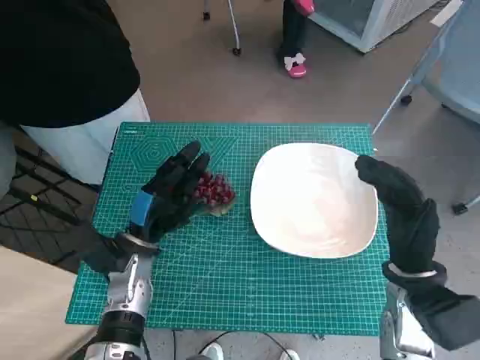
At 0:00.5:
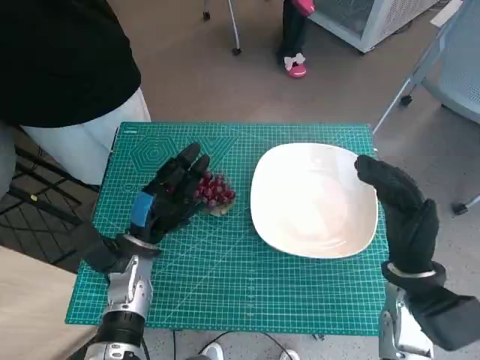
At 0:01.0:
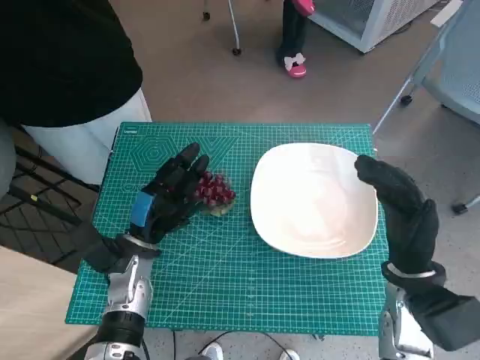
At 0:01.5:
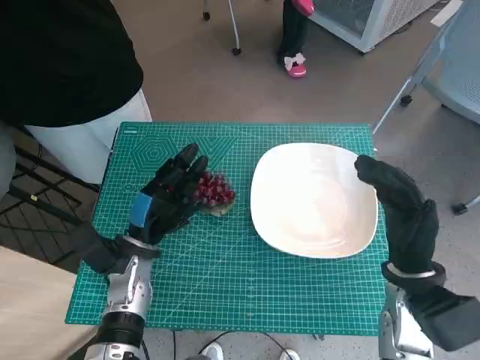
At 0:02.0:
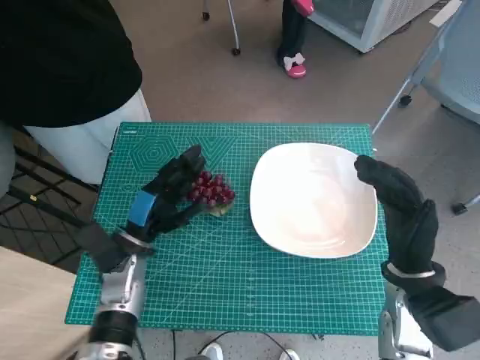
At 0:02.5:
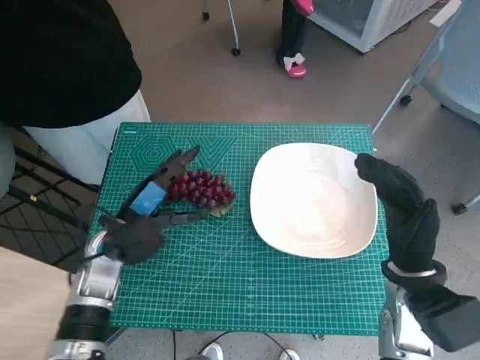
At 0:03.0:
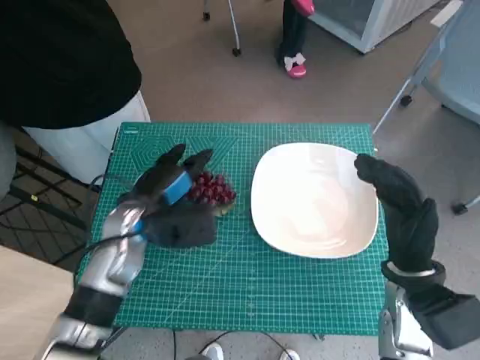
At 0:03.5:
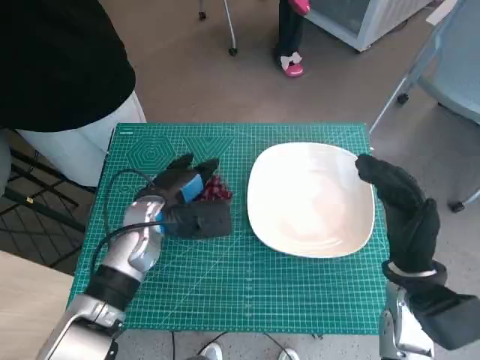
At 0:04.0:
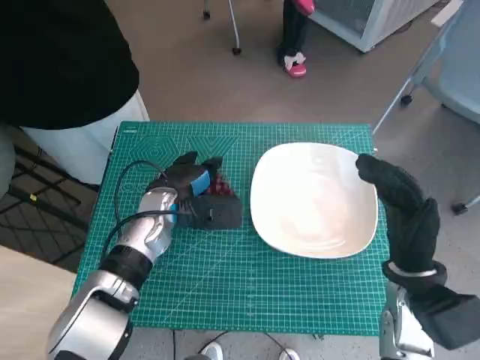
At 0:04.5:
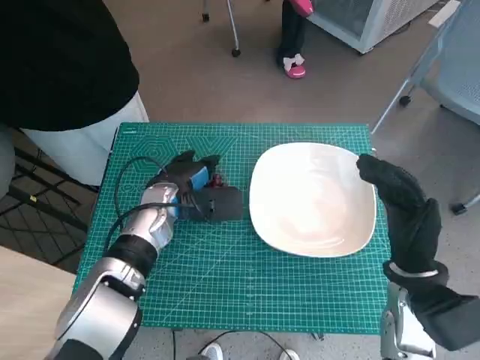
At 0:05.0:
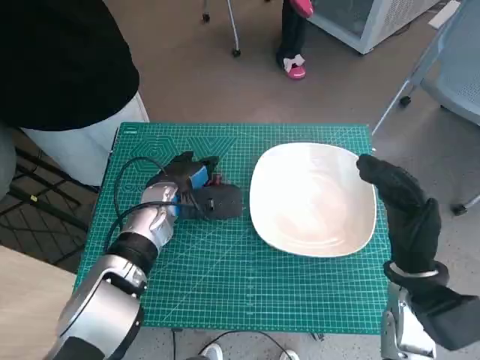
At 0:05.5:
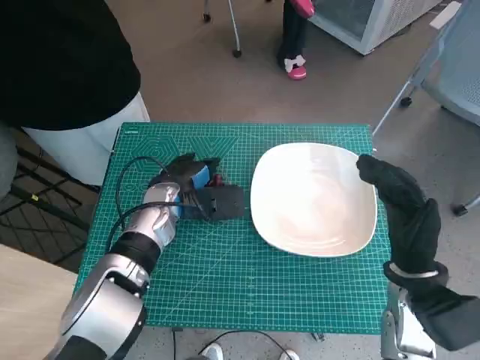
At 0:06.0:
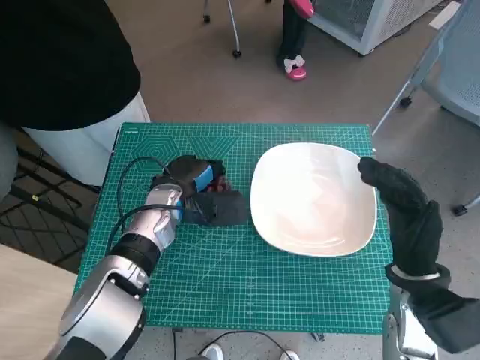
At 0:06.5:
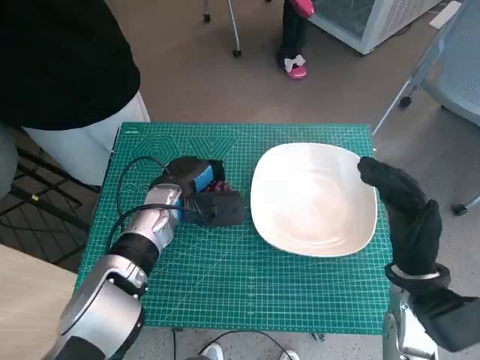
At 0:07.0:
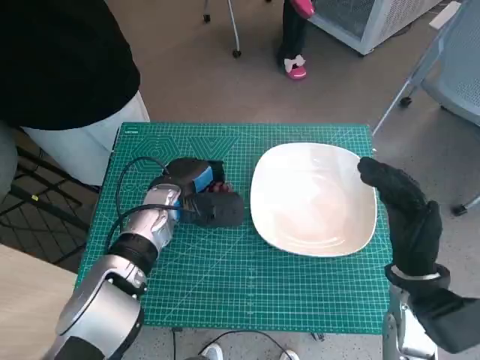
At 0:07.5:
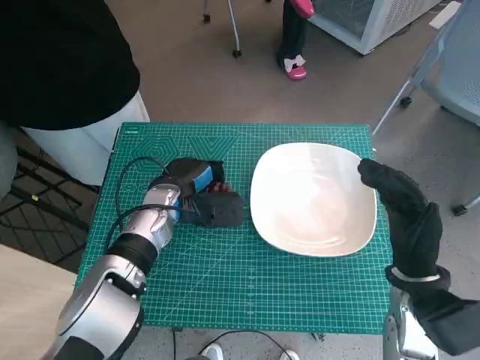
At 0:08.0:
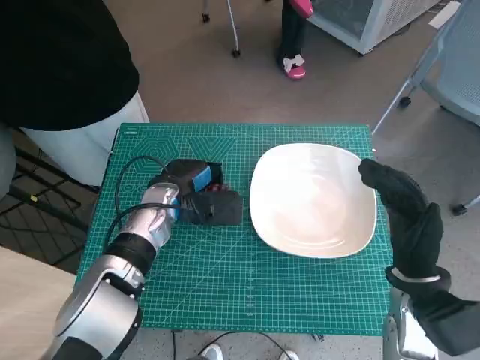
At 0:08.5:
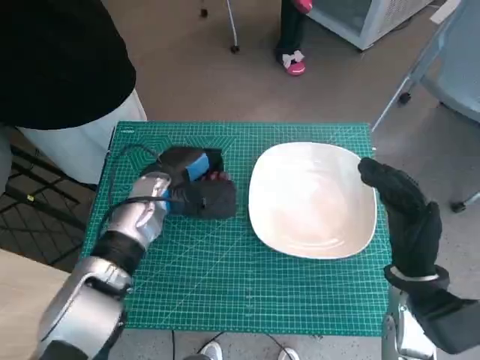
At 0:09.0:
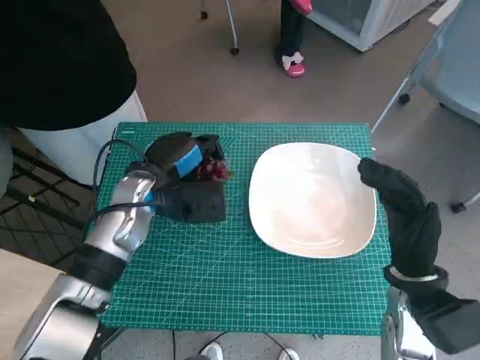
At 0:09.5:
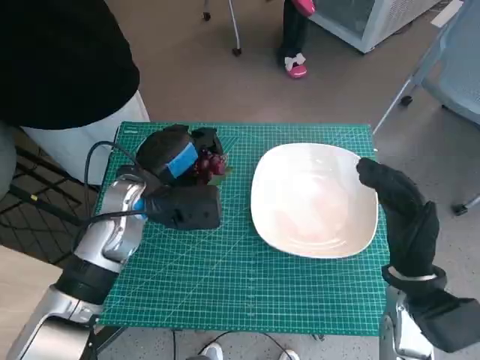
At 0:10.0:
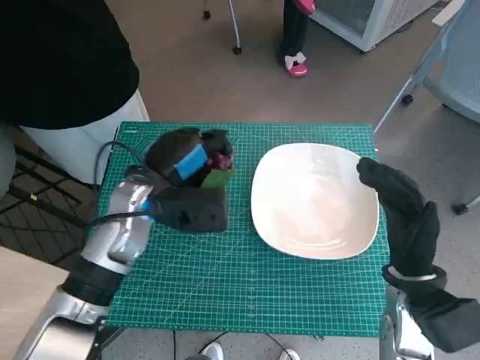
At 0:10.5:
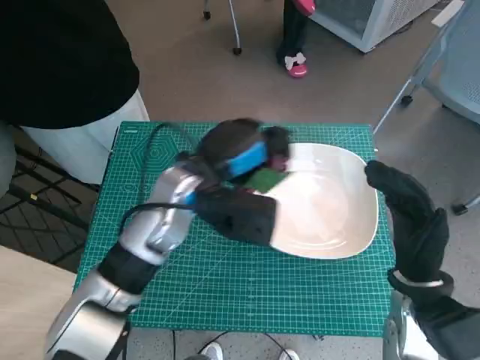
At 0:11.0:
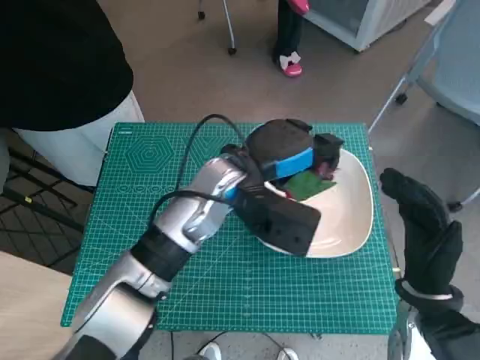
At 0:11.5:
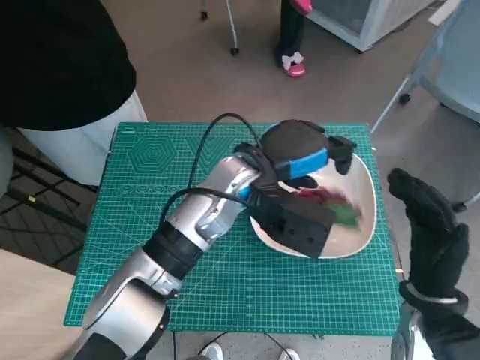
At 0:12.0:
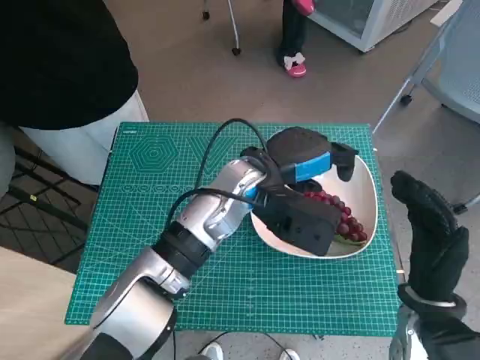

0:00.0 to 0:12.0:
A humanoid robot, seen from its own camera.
Task of the whole recording: Pick up the grapes and put them on the plate.
Step, 0:00.0 to 0:06.0: Grasp the grapes with left hand.
Step, 0:06.5 to 0:11.0: Place the grapes in the plate with left hand.
0:02.0 to 0:04.0: The left hand moves forward and to the right, about 10 cm.
0:04.0 to 0:08.0: Both hands stay put.
0:08.0 to 0:10.0: The left hand shifts about 5 cm upward.
0:10.0 to 0:12.0: The left hand goes roughly 15 cm to the right.

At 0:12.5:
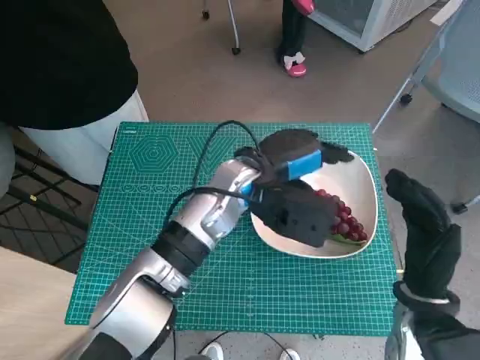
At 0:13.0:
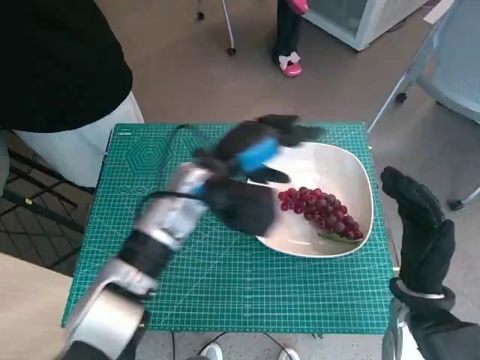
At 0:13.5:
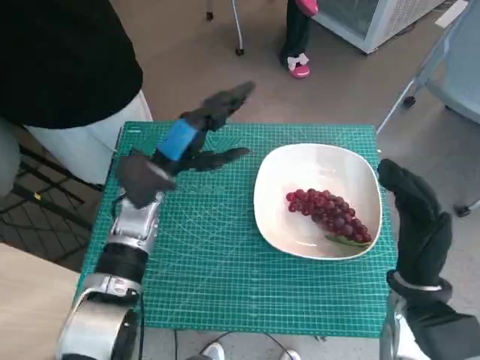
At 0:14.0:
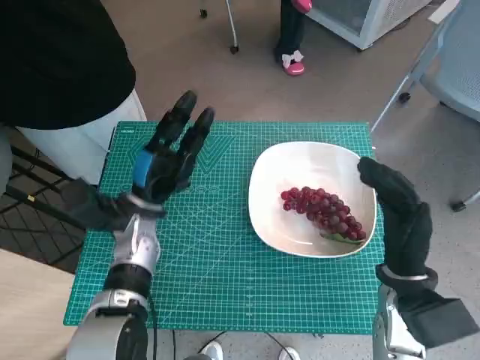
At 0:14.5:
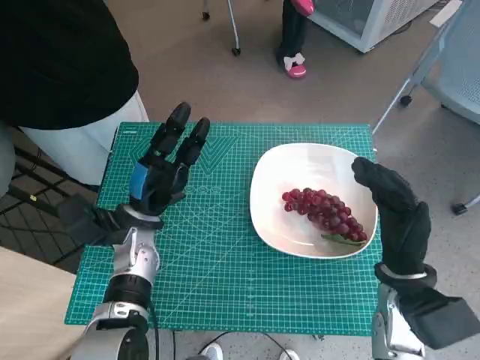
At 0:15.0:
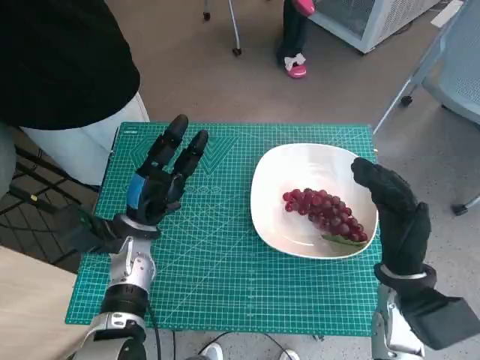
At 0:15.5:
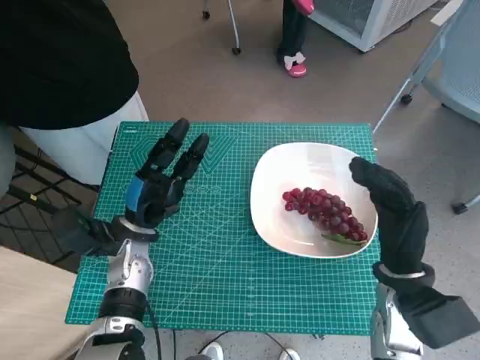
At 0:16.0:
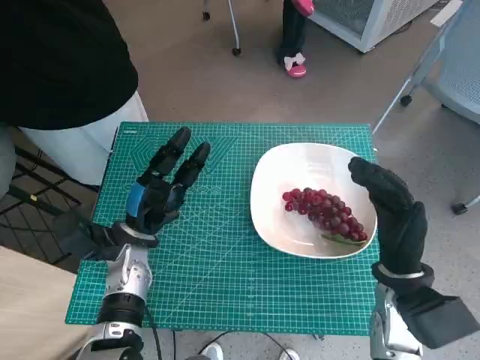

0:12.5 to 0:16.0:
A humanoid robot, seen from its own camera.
Task of the whole recording: Pick up the grapes and put them on the plate.
0:12.5 to 0:14.5: The left hand heads to the left and downward, covering roughly 20 cm.
0:14.5 to 0:16.0: The hands stay close to where they were, moving slightly.

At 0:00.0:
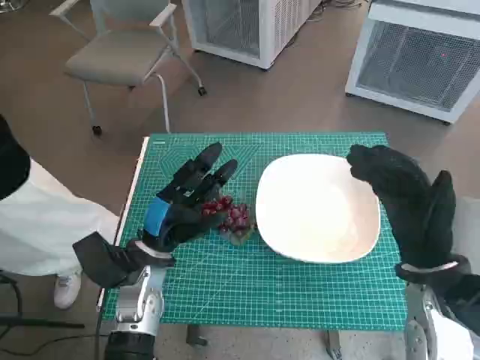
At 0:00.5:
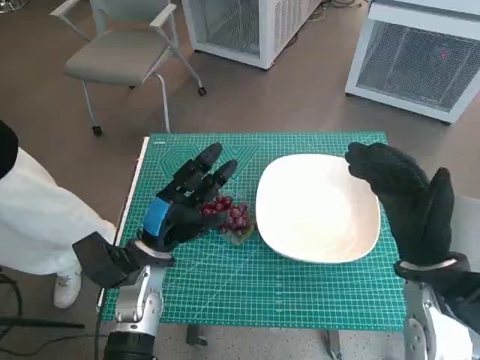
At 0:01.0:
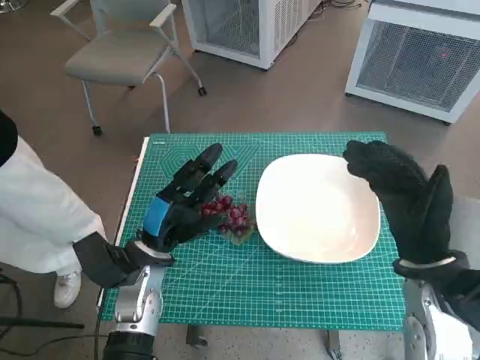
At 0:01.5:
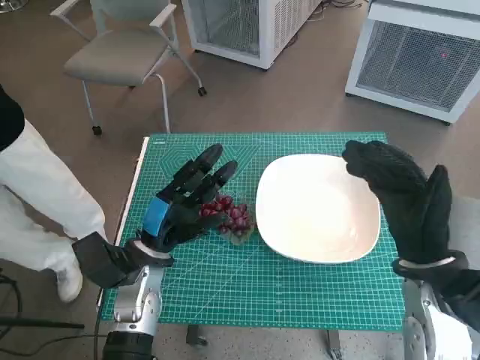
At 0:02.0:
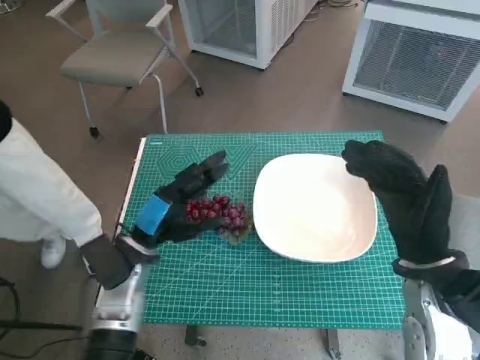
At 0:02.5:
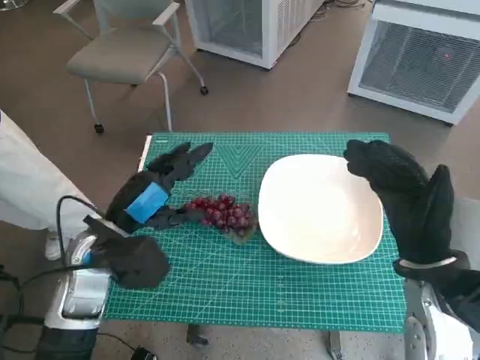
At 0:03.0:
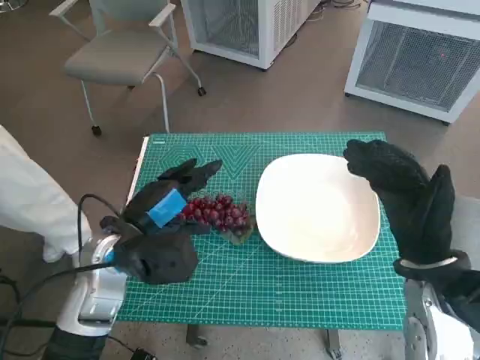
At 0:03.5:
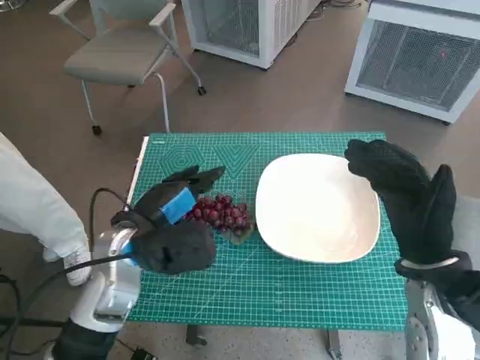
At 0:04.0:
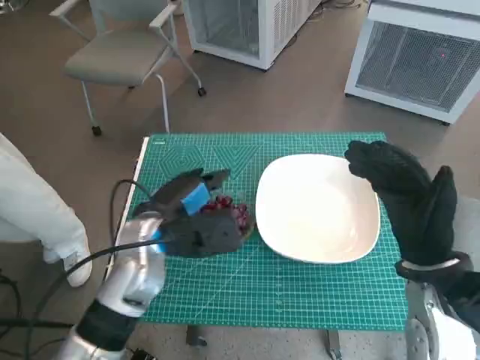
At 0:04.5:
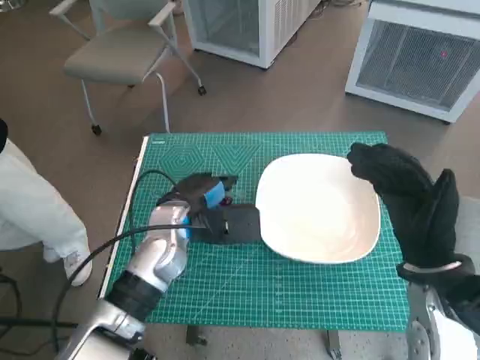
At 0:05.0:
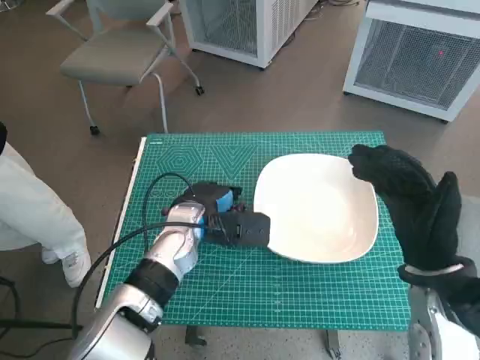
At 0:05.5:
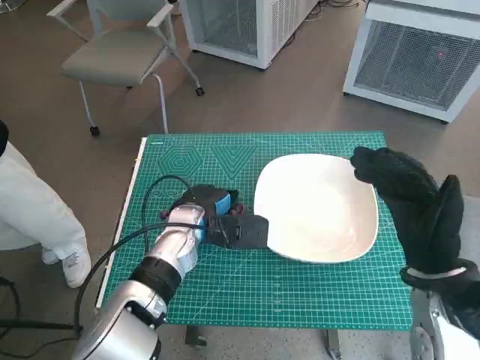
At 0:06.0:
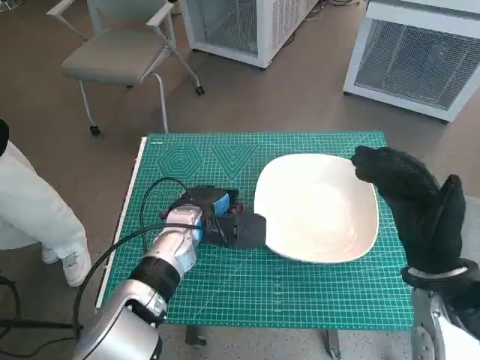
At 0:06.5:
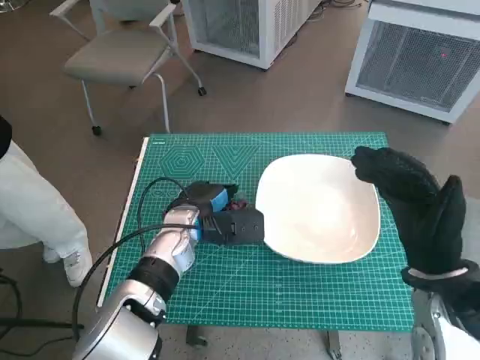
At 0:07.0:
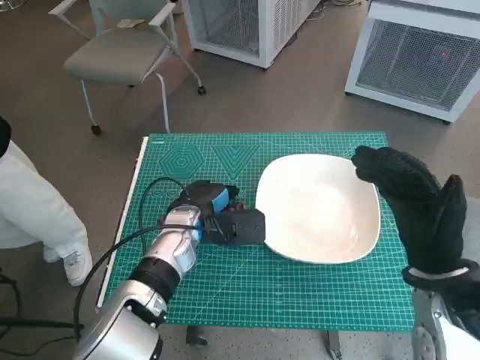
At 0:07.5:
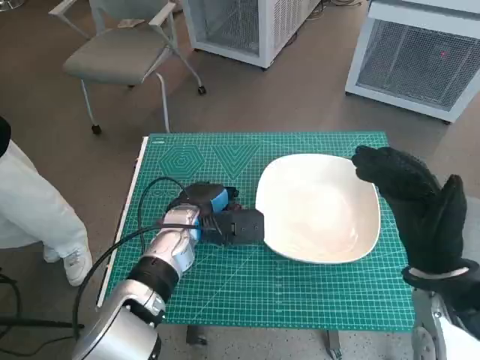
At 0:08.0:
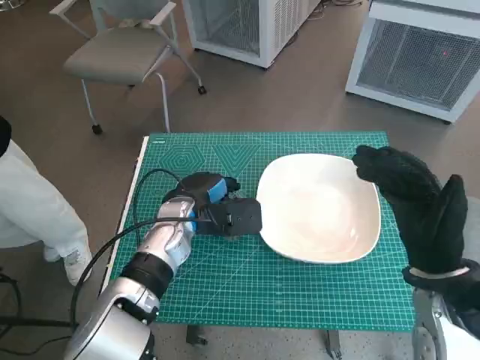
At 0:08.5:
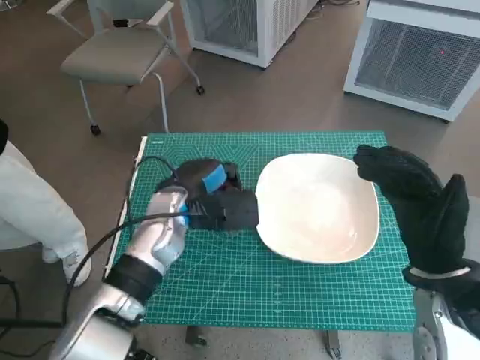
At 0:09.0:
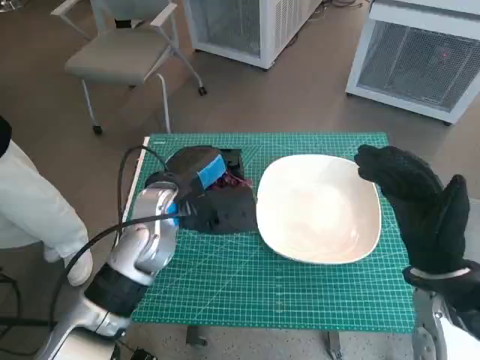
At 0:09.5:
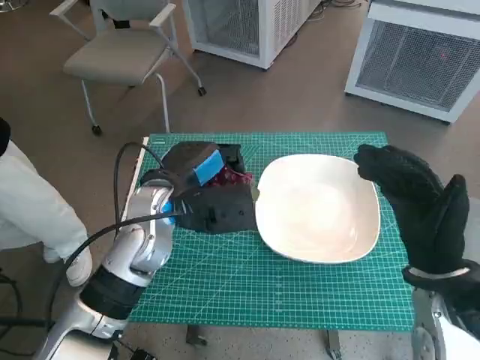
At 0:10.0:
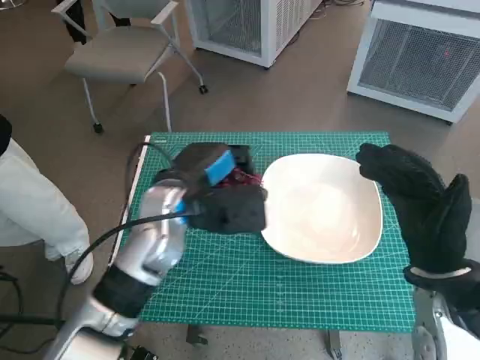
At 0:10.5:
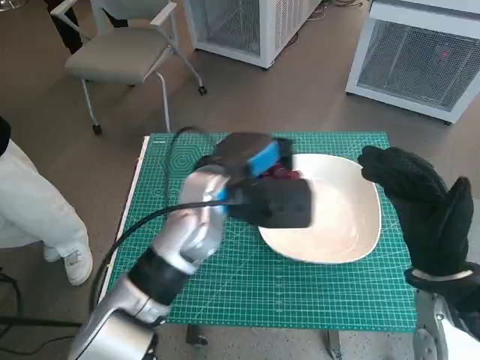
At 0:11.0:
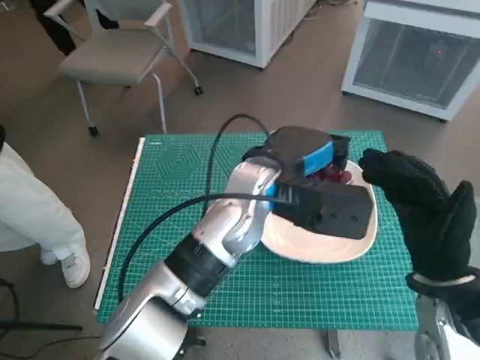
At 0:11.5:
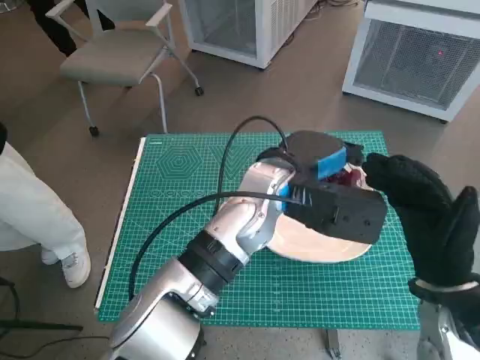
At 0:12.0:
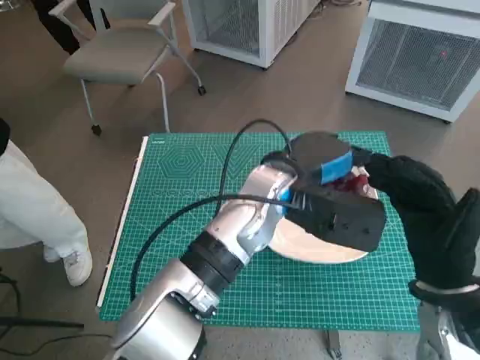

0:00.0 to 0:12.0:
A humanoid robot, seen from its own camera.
Task of the whole recording: Pick up the grapes and put them on the plate.
Step, 0:00.0 to 0:07.0: Grasp the grapes with left hand.
0:02.0 to 0:04.0: The left hand travels upward by some 5 cm.
0:04.0 to 0:06.0: The left hand moves downward and forward, some 10 cm.
0:06.0 to 0:08.0: The hands make only small movements.
0:08.0 to 0:10.0: The left hand goes roughly 10 cm upward.
0:10.0 to 0:12.0: The left hand is displaced to the right by roughly 15 cm.
